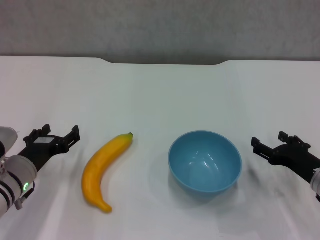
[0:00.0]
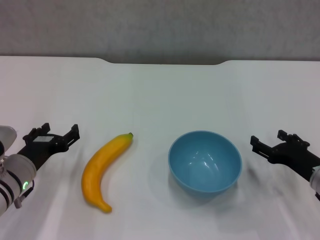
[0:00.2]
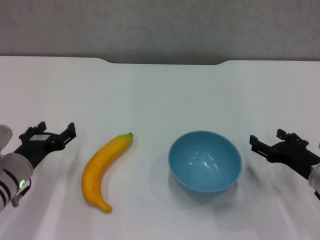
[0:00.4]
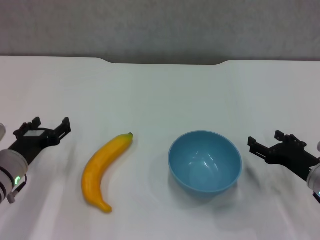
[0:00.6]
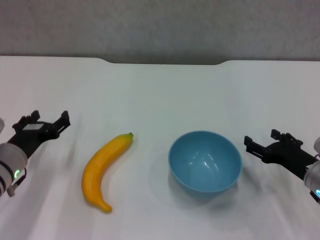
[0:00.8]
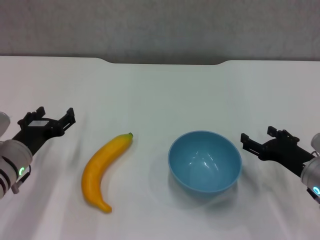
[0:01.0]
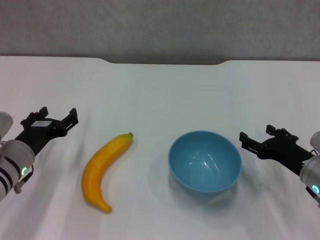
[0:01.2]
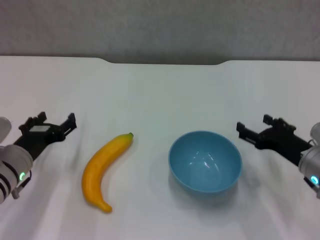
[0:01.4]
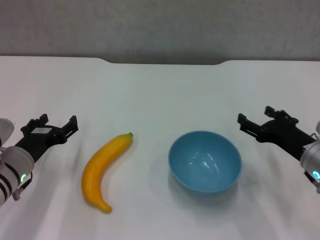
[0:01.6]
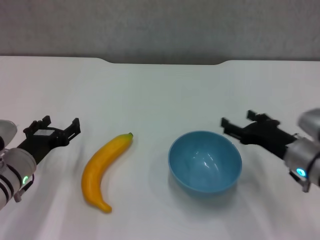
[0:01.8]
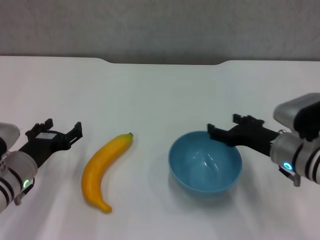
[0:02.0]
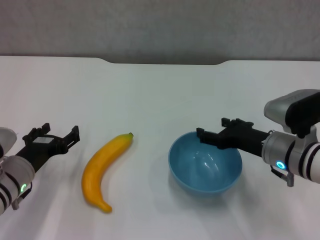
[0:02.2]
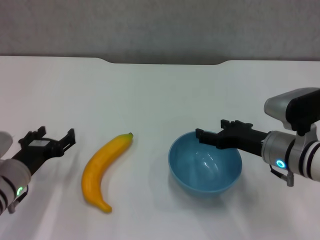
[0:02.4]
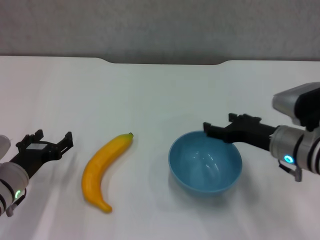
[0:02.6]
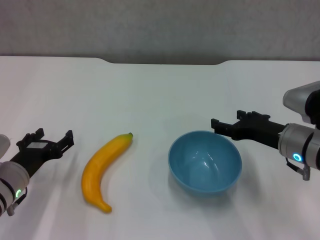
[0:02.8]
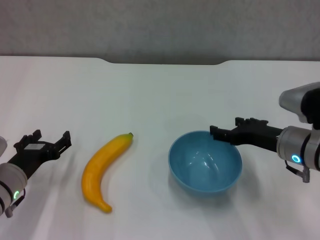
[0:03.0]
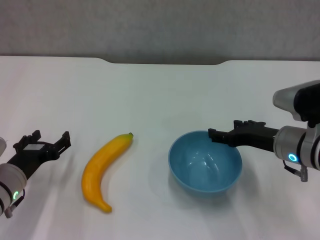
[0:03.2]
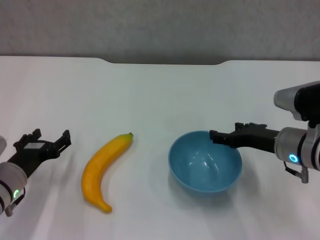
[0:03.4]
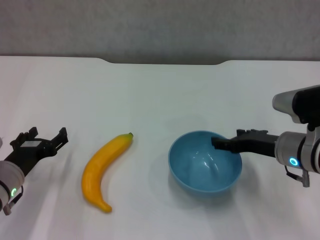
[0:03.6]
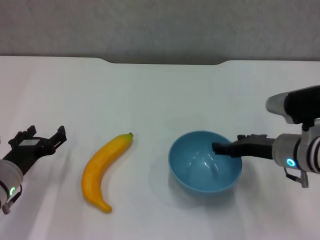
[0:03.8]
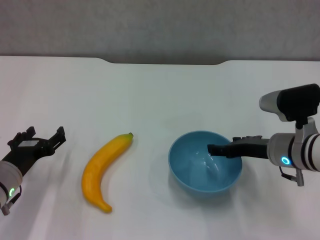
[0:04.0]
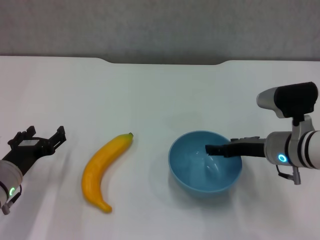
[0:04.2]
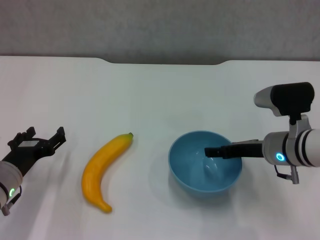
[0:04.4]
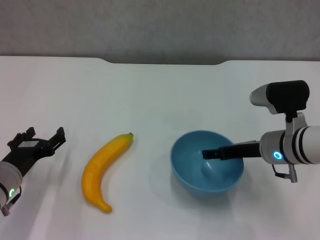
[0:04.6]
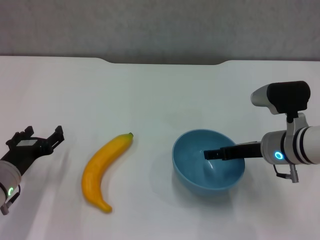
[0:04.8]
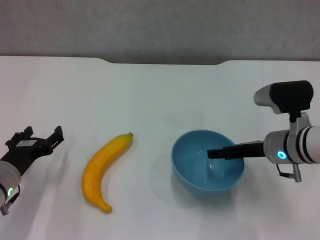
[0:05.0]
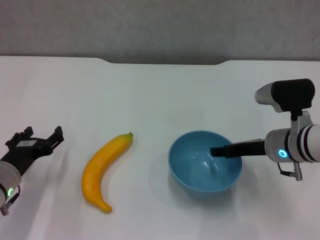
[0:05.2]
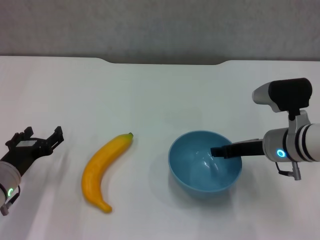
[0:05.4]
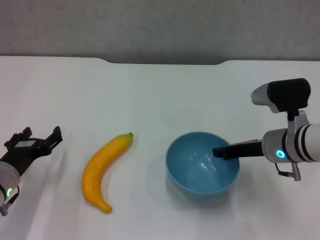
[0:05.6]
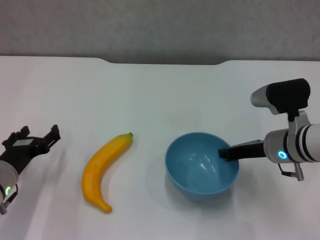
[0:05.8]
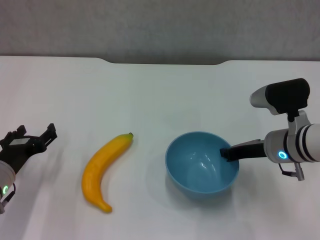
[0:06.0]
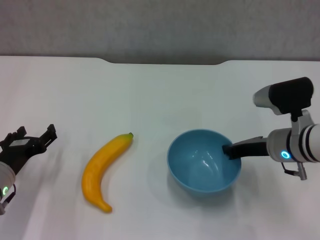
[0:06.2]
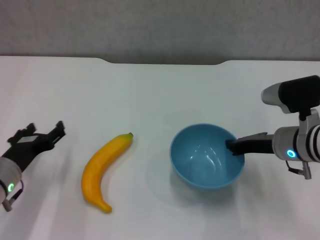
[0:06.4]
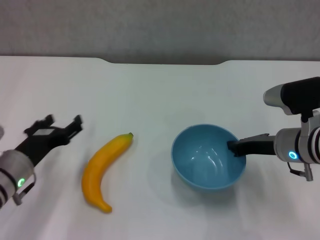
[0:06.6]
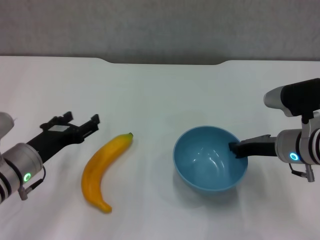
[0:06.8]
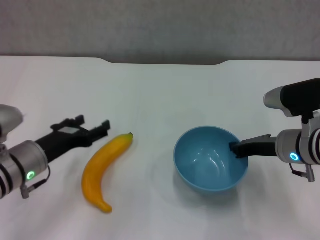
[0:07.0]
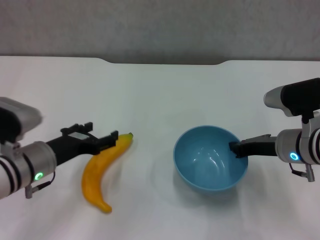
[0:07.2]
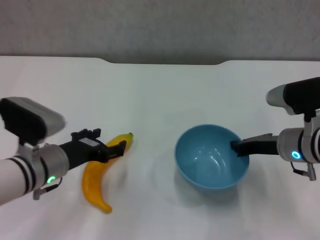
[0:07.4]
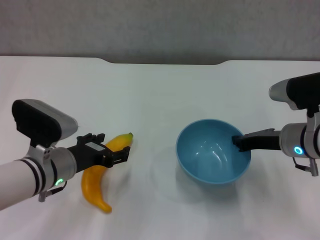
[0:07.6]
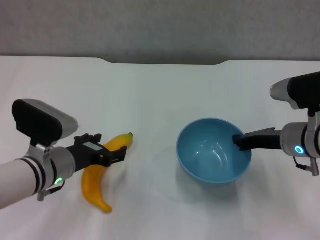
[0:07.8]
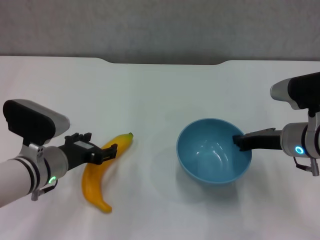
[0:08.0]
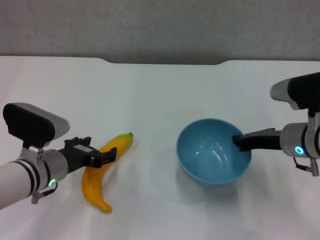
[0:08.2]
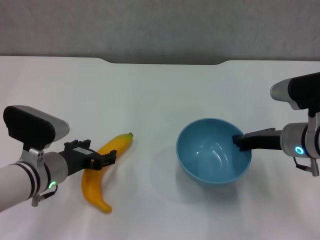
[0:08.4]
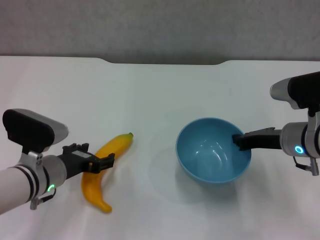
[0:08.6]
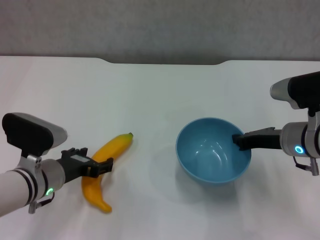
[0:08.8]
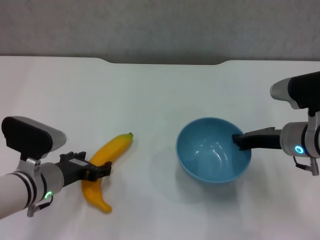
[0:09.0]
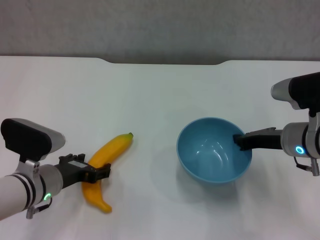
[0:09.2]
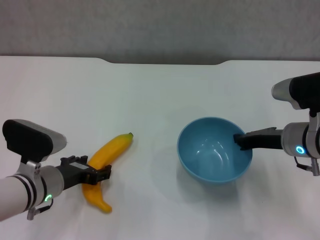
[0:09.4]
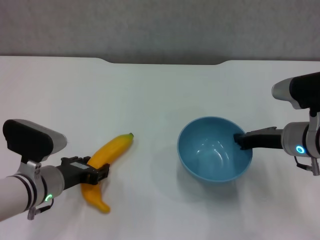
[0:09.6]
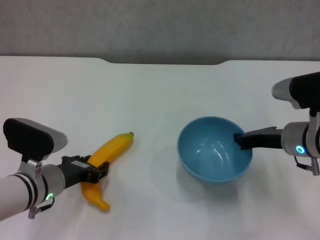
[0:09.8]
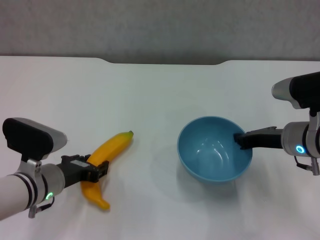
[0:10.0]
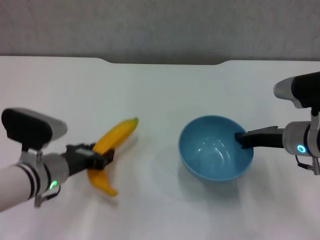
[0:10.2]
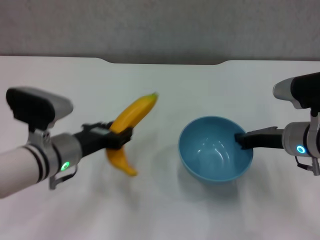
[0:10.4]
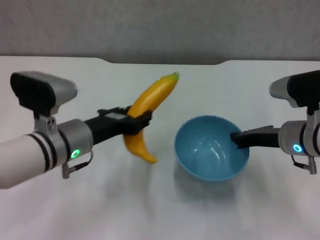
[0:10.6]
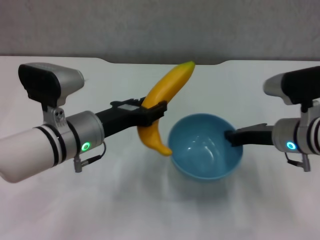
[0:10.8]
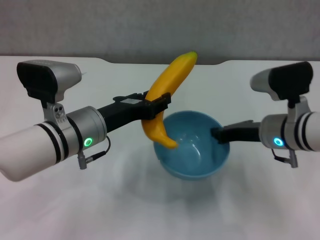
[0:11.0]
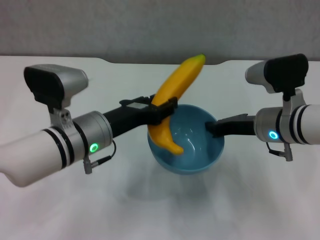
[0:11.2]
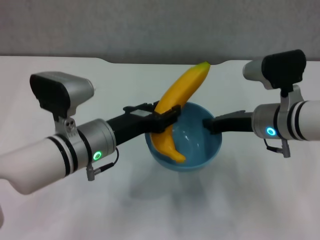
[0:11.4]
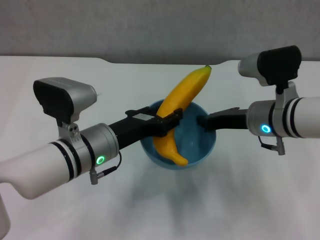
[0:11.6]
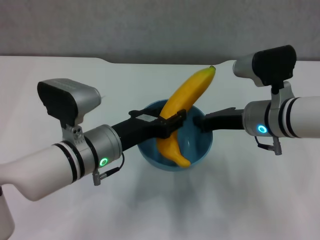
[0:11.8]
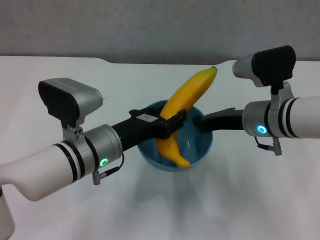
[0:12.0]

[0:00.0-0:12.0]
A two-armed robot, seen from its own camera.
Step, 0:00.0 to 0:06.0: Grasp the blue bowl with right gripper.
Step, 0:06.2 to 0:06.8: Lift the blue bowl with right gripper.
Step, 0:07.0 to 0:09.8: Grasp the banana with left gripper.
0:00.0 to 0:01.6: The grippers stay close to where they were, moving slightly.
0:01.6 to 0:03.0: The right gripper ends up approximately 5 cm from where it was.
0:03.0 to 0:04.4: There are only small adjustments of the grippers.
0:04.4 to 0:06.0: The right gripper closes up.
0:06.0 to 0:07.6: The left gripper shifts approximately 10 cm to the right.
0:07.6 to 0:09.0: The grippers make only small movements.
0:09.0 to 0:10.4: The left gripper ends up roughly 5 cm from where it was, and closes its fingers.
0:10.4 to 0:12.0: The right gripper shifts some 5 cm to the left. The left gripper is displaced to the right by approximately 5 cm, and opens its fingers.

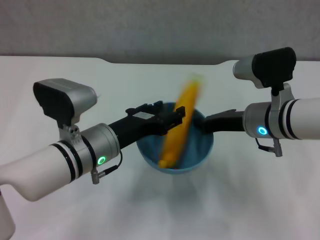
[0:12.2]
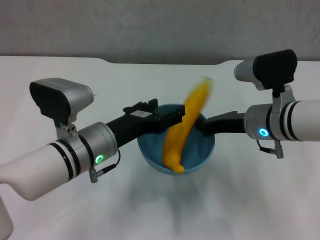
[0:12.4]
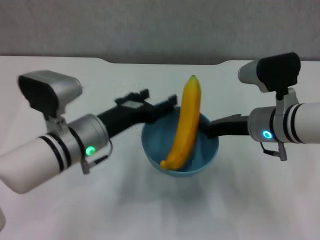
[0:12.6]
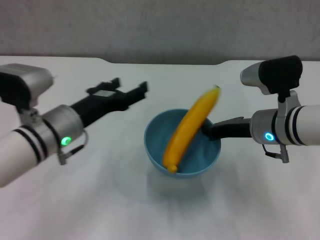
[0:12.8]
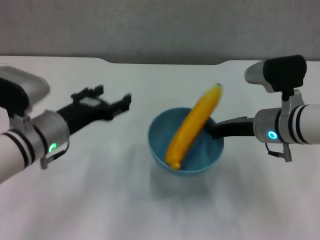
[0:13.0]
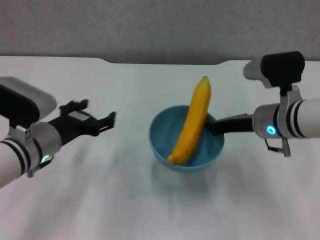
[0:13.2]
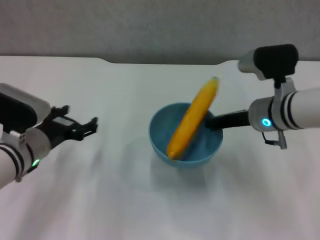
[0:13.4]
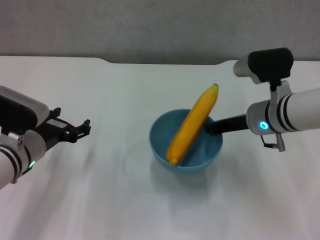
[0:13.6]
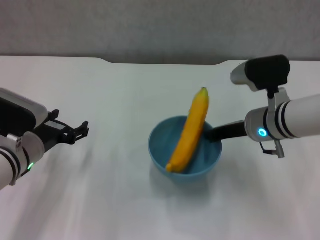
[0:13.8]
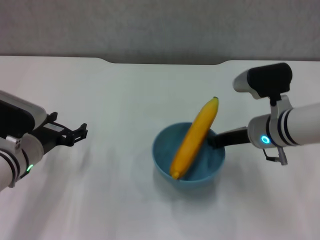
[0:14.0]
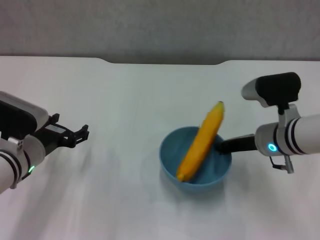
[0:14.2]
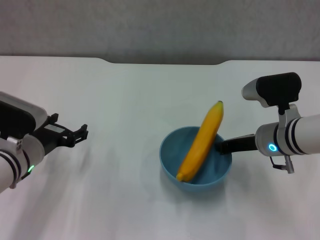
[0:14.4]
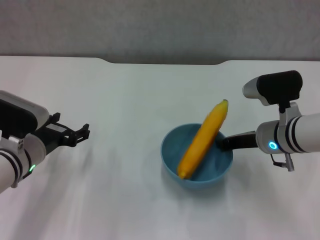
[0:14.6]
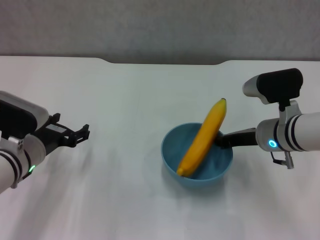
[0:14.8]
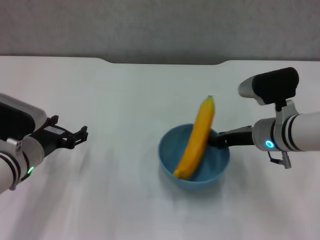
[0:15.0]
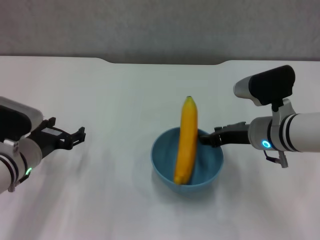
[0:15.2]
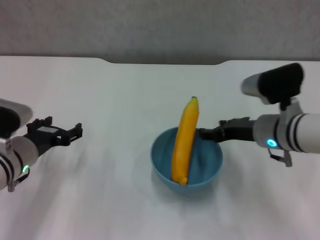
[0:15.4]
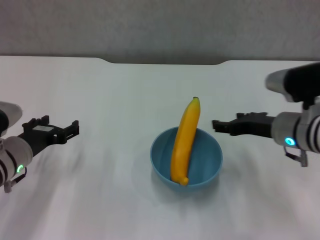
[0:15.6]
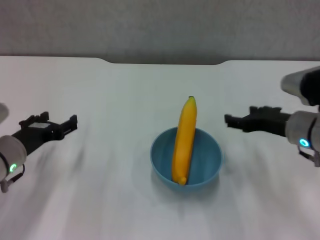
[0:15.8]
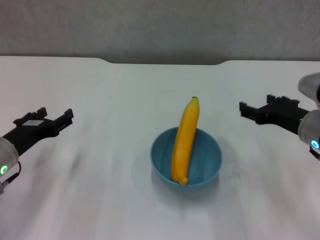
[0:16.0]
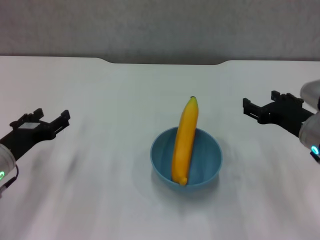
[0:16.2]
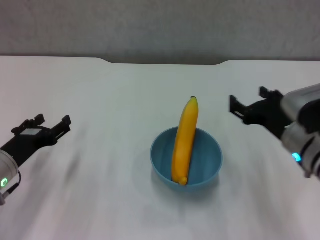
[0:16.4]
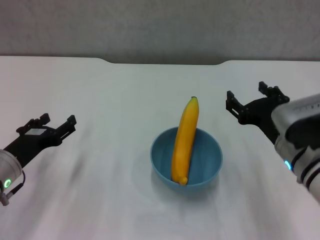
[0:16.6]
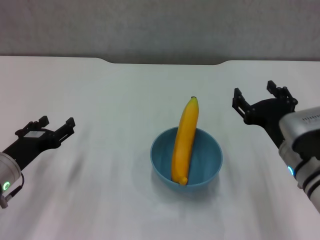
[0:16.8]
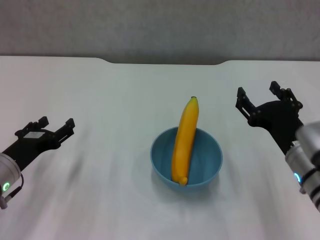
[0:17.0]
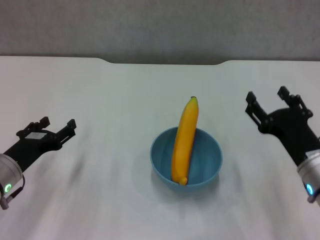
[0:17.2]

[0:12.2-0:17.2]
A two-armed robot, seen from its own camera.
Step, 0:12.6 to 0:15.4: Place the bowl on the table with right gripper.
0:12.2 to 0:13.8: The left gripper heads to the left, covering approximately 10 cm, and opens up.
0:13.8 to 0:15.6: The right gripper opens up.
0:15.6 to 0:17.2: The right gripper heads backward, covering approximately 10 cm.
